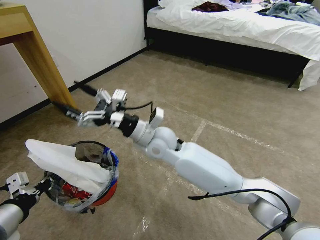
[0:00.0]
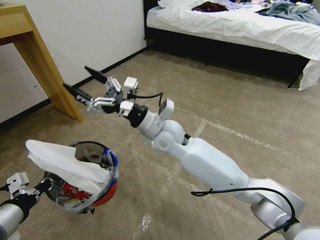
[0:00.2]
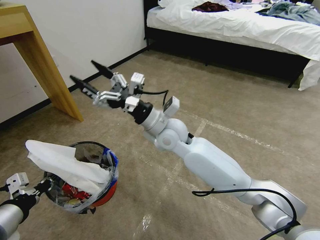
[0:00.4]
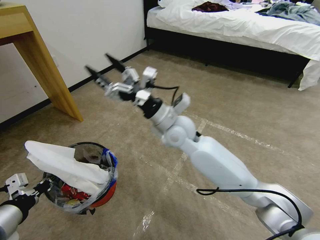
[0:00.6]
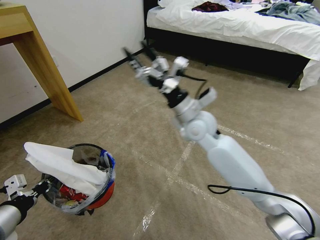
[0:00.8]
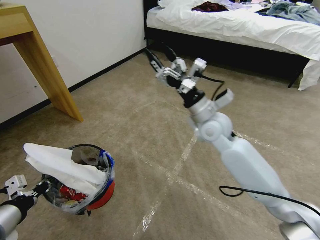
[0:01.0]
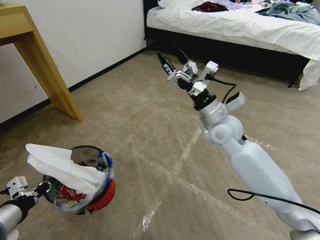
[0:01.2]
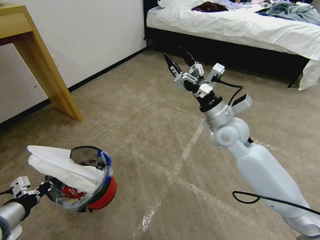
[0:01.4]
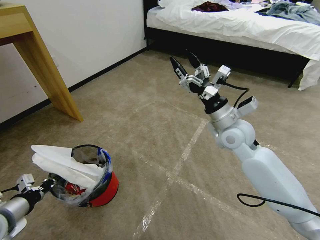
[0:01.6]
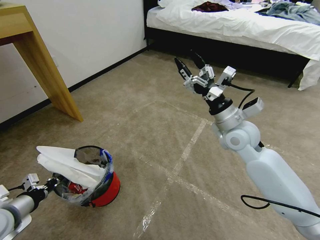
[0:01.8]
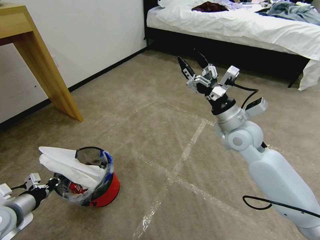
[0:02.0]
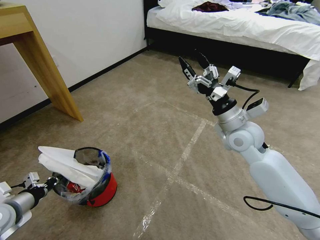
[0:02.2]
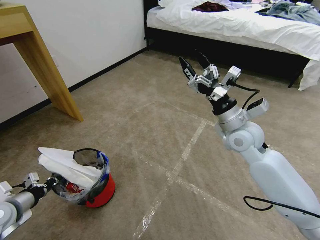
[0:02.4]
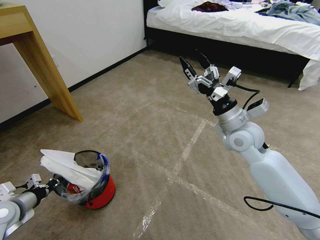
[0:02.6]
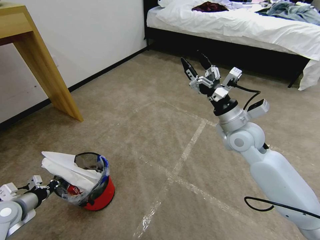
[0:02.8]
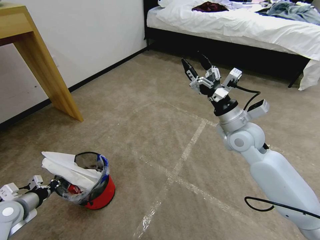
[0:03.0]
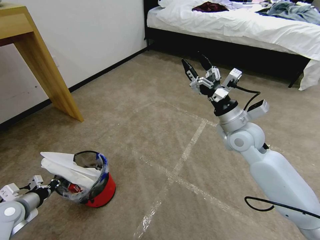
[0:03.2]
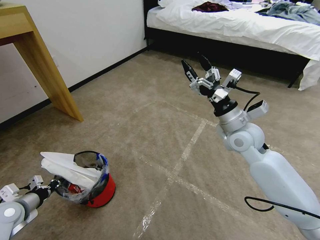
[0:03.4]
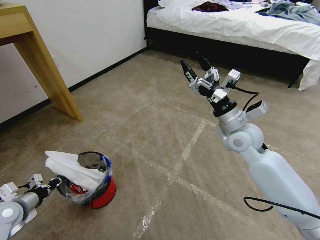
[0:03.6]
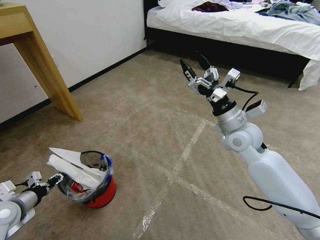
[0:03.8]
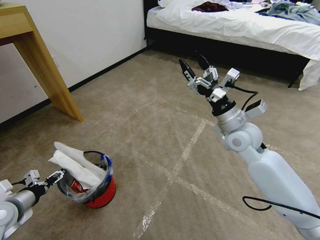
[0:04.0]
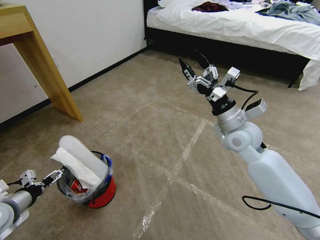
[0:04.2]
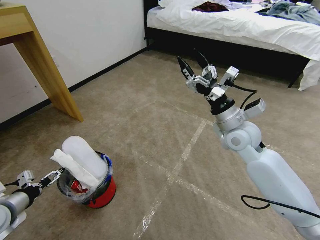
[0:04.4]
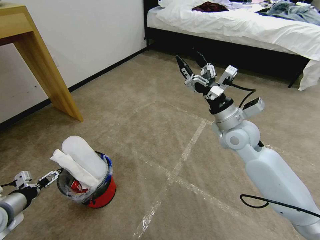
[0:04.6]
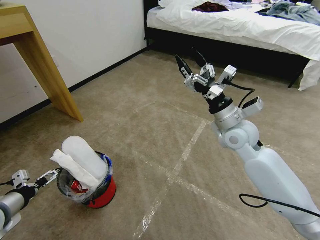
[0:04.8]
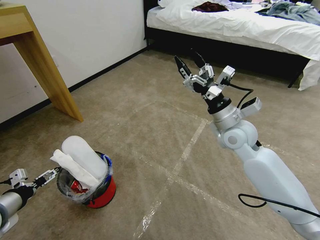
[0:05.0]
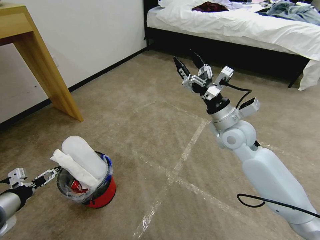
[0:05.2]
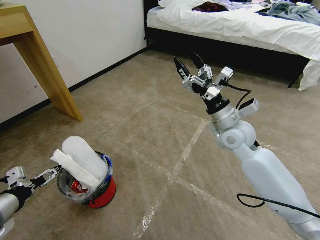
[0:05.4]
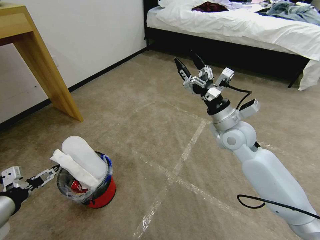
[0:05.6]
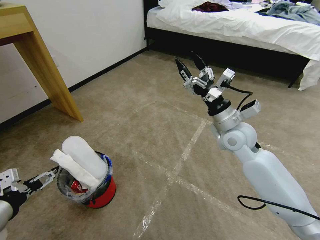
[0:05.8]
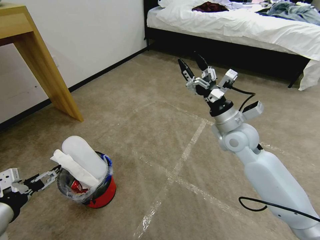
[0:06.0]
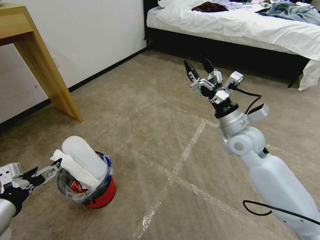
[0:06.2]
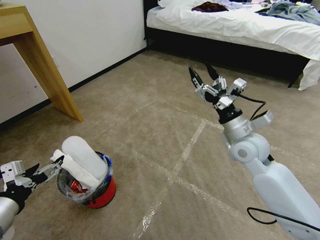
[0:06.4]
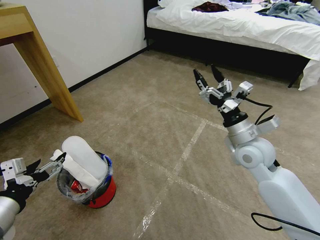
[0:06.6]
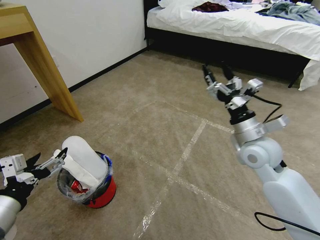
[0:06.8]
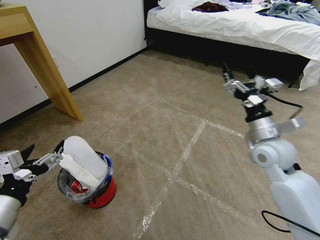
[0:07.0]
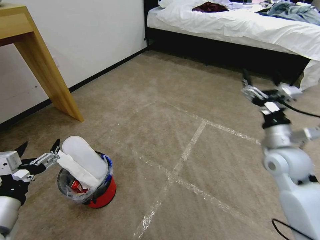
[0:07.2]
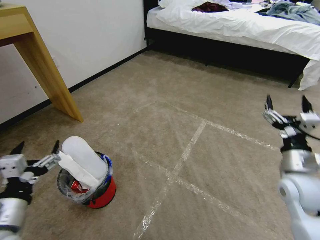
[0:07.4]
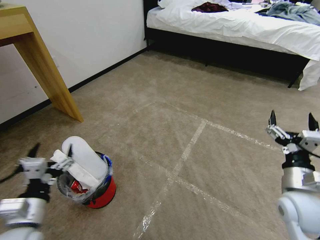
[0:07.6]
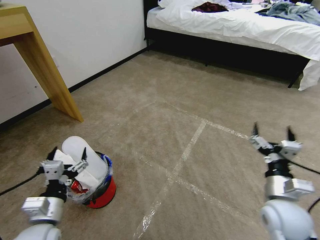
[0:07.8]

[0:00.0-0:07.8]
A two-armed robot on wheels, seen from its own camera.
Task of the whole recording: Pick up the trash bin and place the garbage on the floor into it.
0:00.0 to 0:01.6: The left gripper shifts roughly 10 cm downward and to the left; the right gripper travels to the right by about 20 cm.
0:01.6 to 0:03.2: The left gripper is displaced downward and forward by roughly 10 cm.
0:03.2 to 0:04.6: The left gripper is displaced upward by approximately 5 cm, and opens.
0:04.6 to 0:06.2: The left gripper goes roughly 15 cm upward, to the right and backward.
0:06.2 to 0:07.8: The right gripper shifts some 20 cm backward, downward and to the right, while the left gripper goes about 15 cm downward and to the right.
